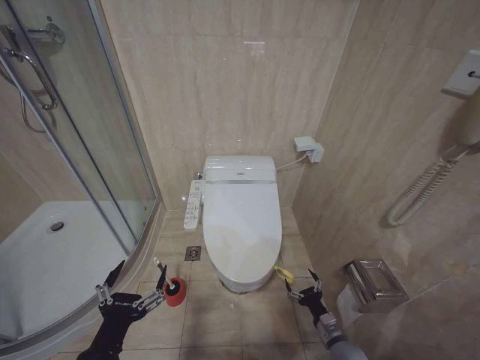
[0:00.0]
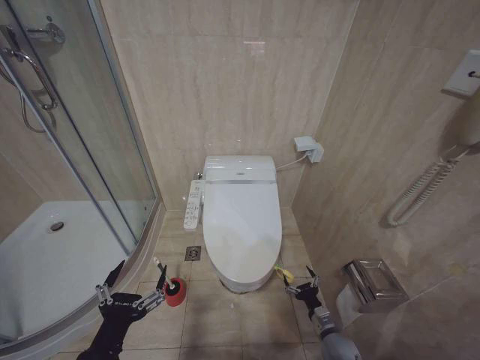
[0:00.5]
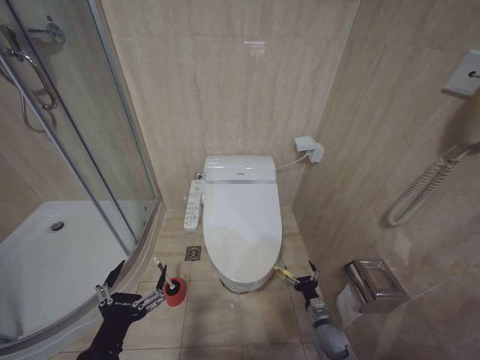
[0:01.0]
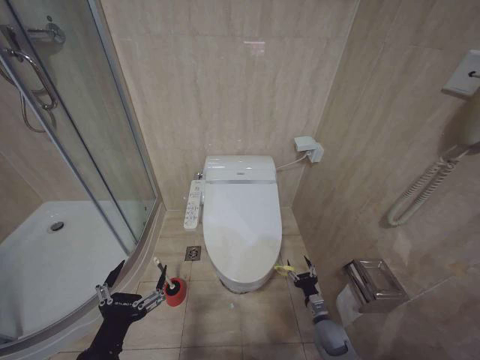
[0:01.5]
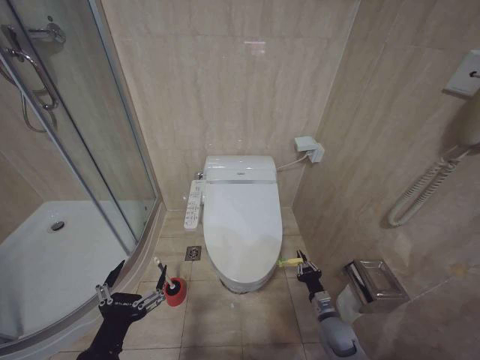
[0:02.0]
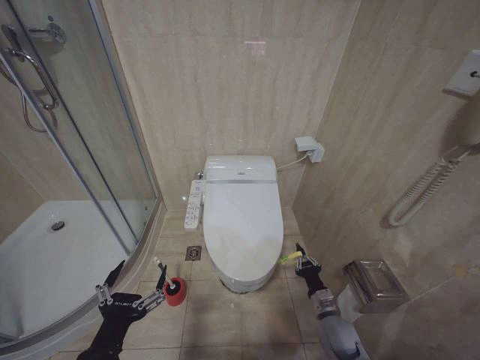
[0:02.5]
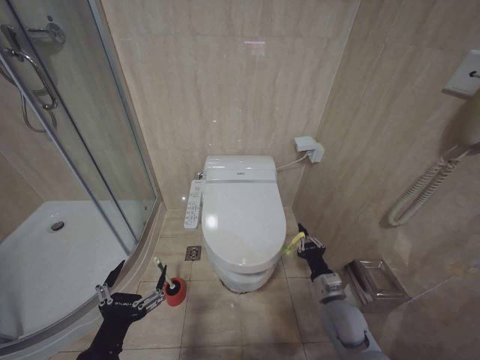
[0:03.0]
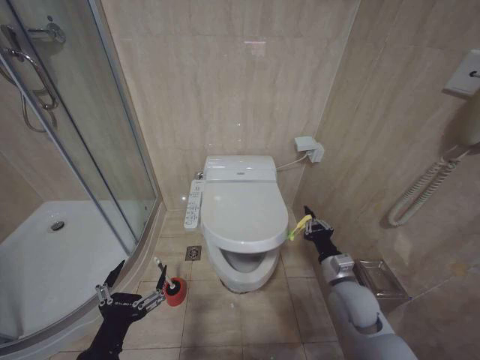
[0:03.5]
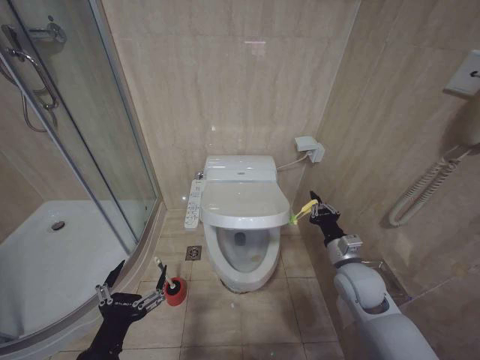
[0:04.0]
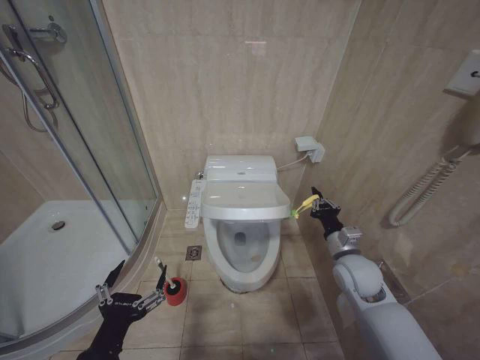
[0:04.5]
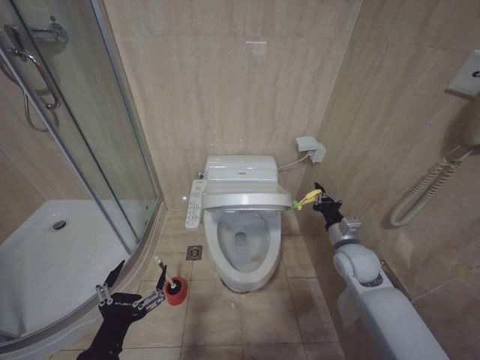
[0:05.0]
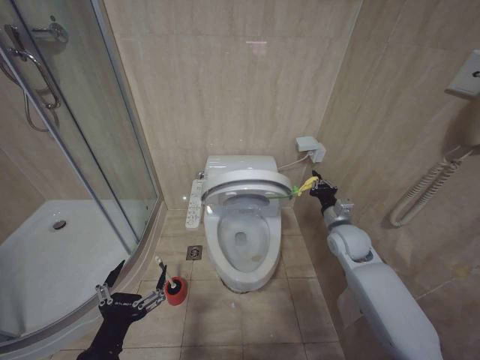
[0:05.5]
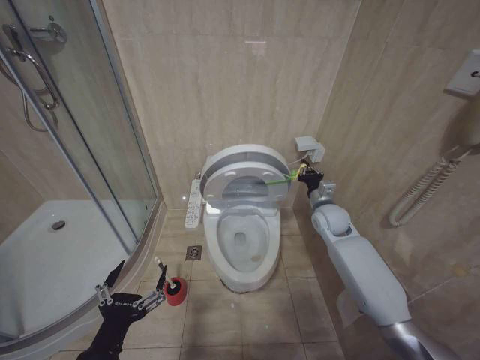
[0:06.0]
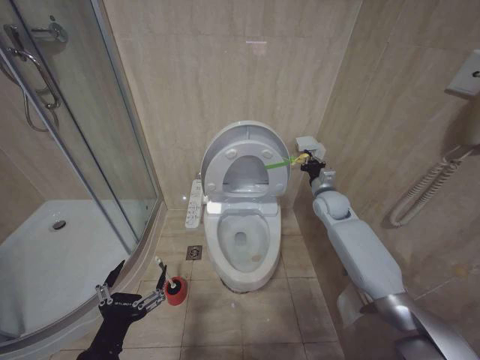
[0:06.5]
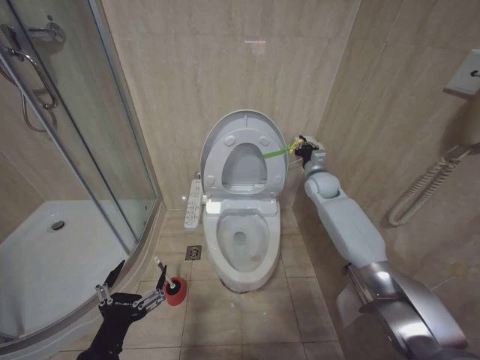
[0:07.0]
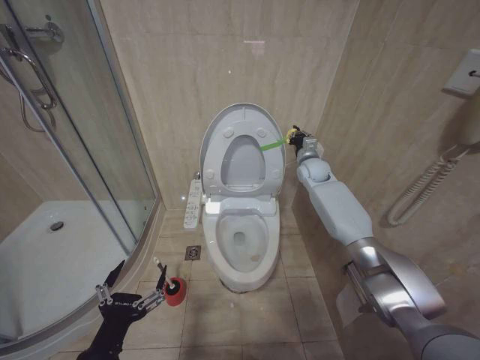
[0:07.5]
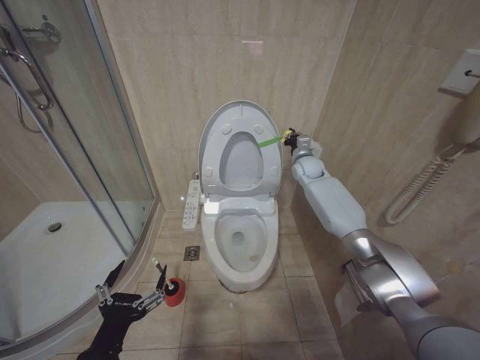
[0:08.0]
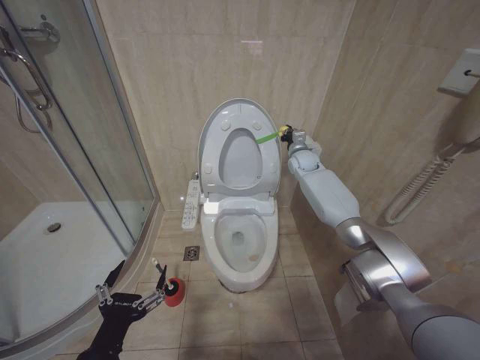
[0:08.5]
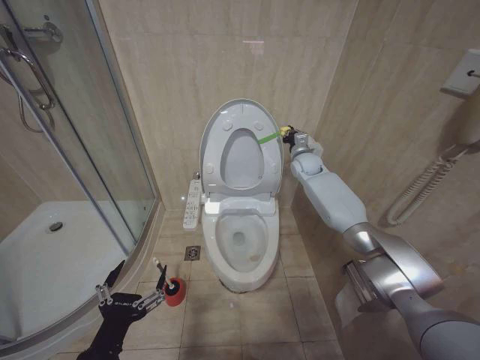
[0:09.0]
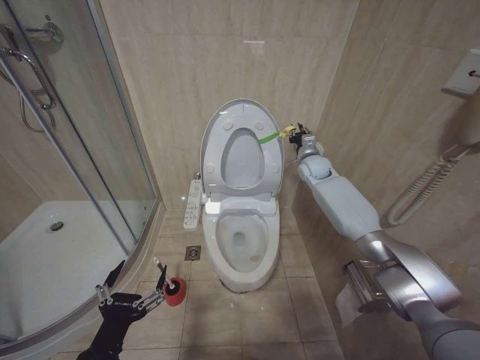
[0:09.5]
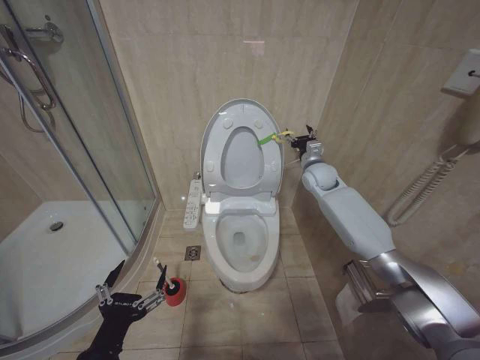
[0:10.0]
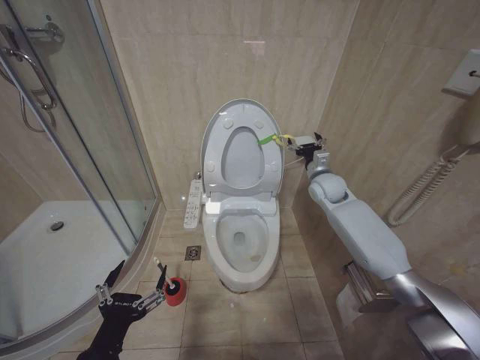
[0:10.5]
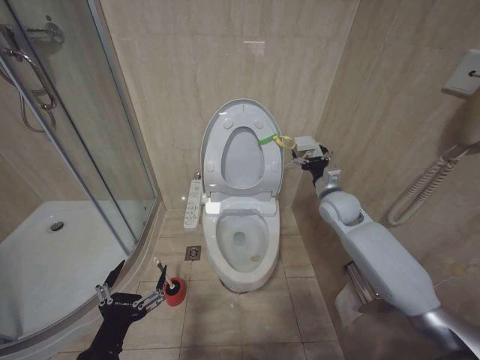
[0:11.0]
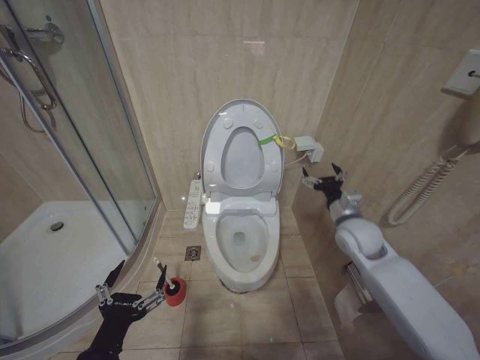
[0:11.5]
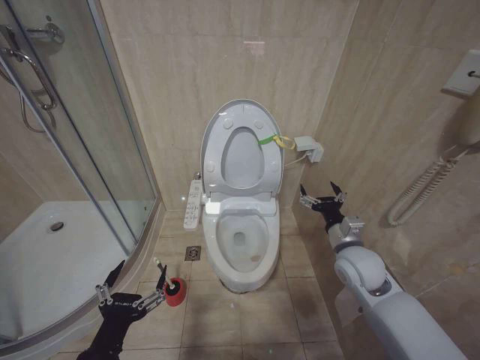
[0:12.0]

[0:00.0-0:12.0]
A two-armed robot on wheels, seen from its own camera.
Task of the whole recording: Open the toilet lid, clean the toilet bowl with a toilet brush, close the toilet lid, and flush.
0:00.0 to 0:02.0: The right gripper shifts roughly 5 cm forward, and closes.
0:02.0 to 0:04.0: The right gripper moves upward, about 25 cm, and closes its fingers.
0:04.0 to 0:06.0: The right gripper travels forward by roughly 15 cm.
0:06.0 to 0:08.0: The right gripper travels forward and upward by approximately 20 cm.
0:08.0 to 0:10.0: The right gripper ends up some 5 cm from where it was, and opens up.
0:10.0 to 0:12.0: The right gripper heads backward, covering roughly 25 cm, and opens its fingers.

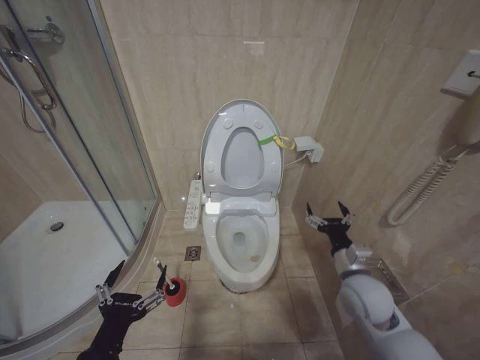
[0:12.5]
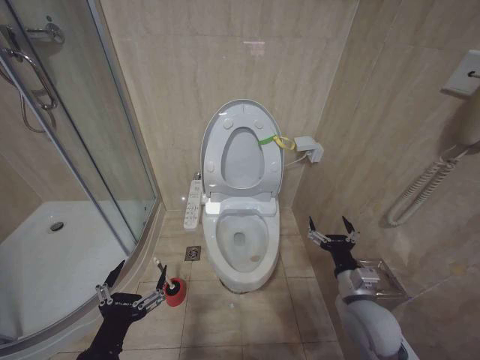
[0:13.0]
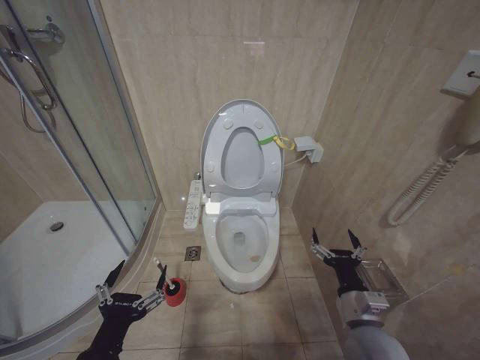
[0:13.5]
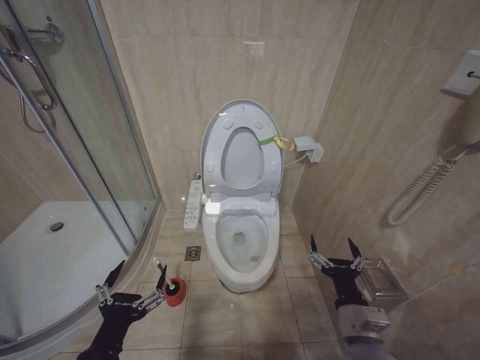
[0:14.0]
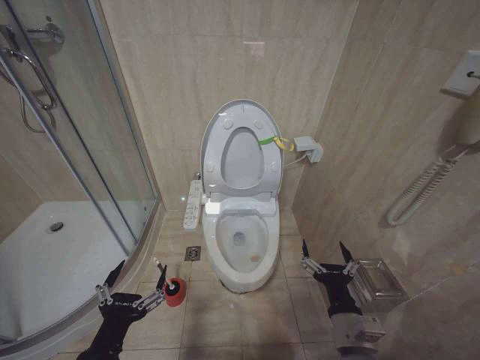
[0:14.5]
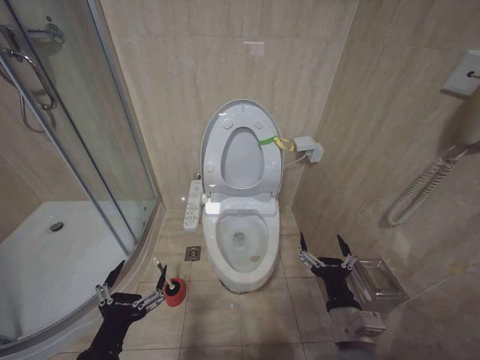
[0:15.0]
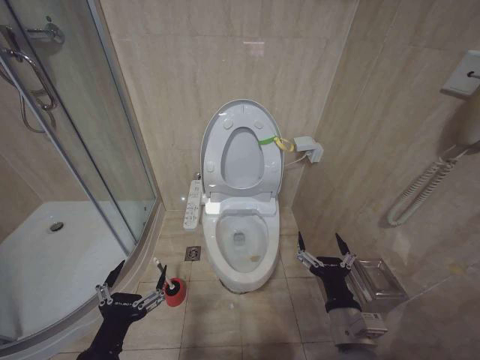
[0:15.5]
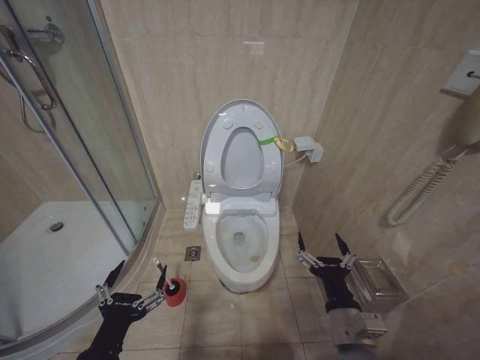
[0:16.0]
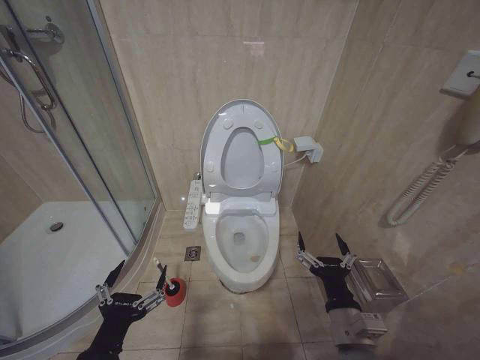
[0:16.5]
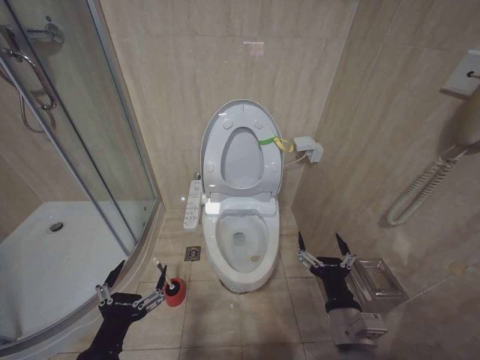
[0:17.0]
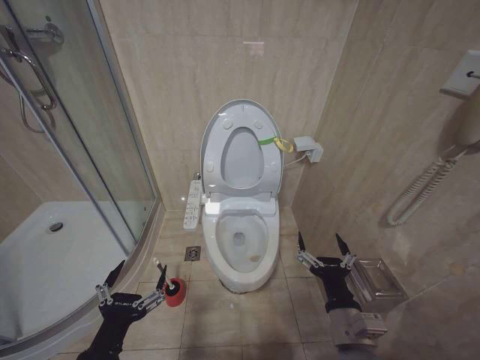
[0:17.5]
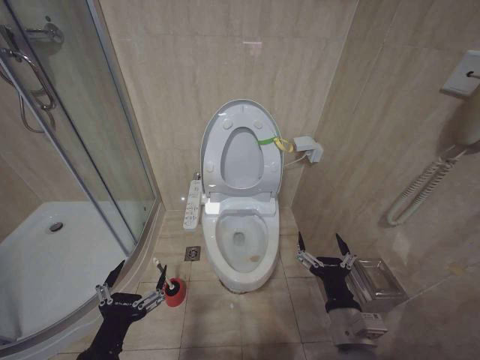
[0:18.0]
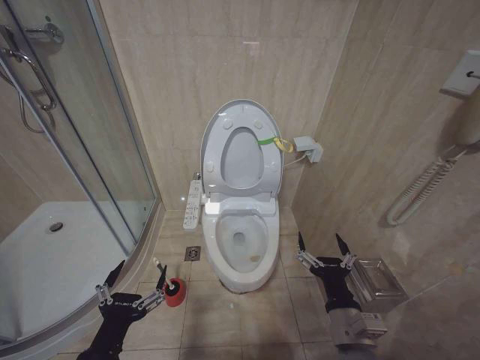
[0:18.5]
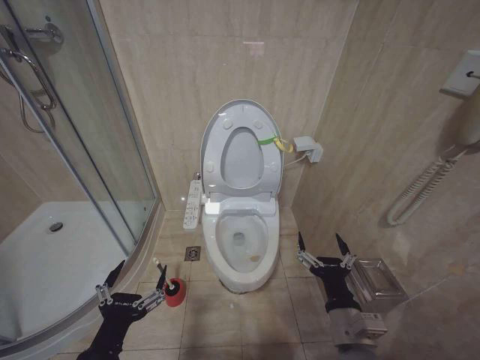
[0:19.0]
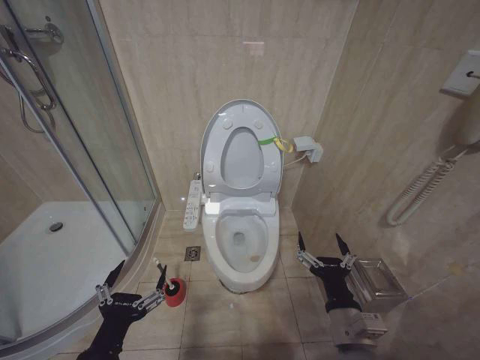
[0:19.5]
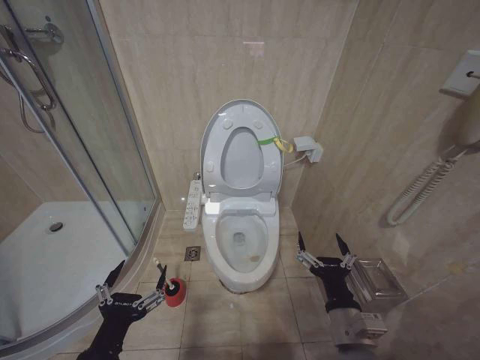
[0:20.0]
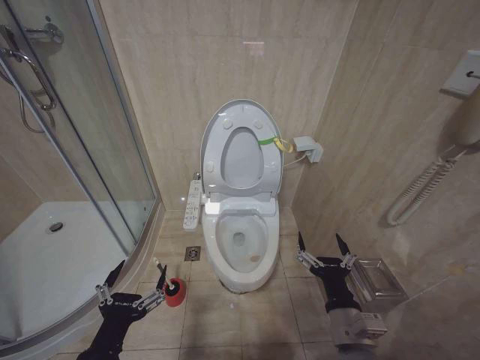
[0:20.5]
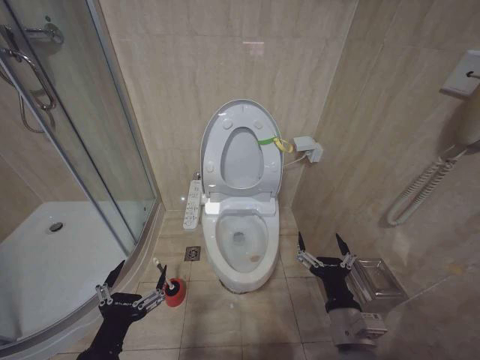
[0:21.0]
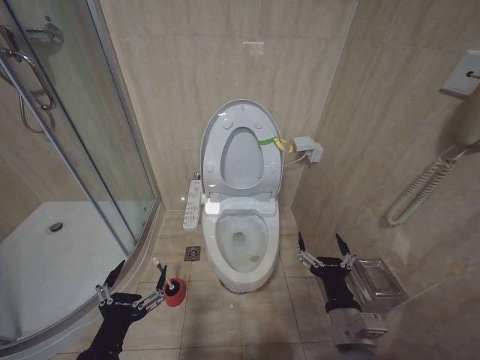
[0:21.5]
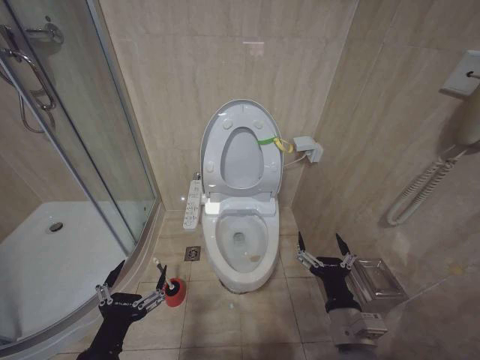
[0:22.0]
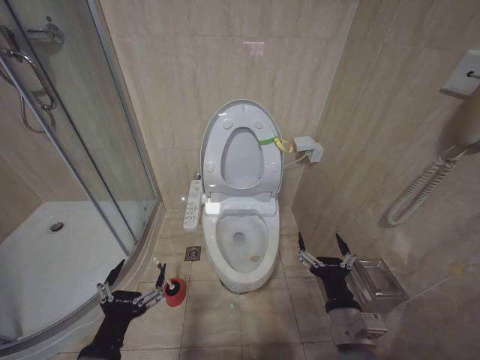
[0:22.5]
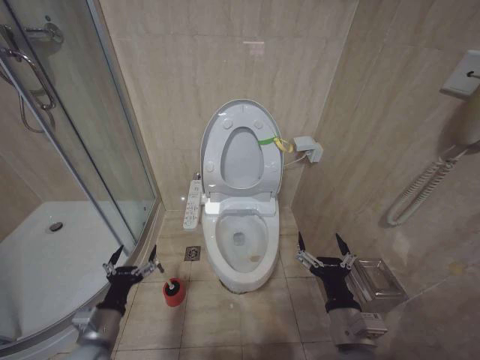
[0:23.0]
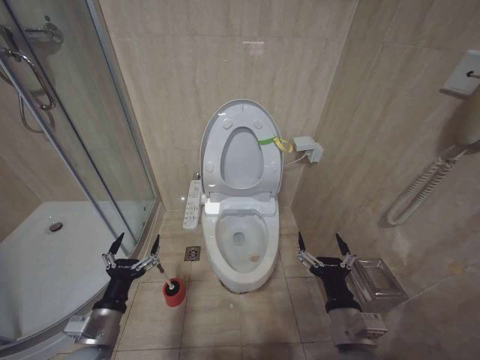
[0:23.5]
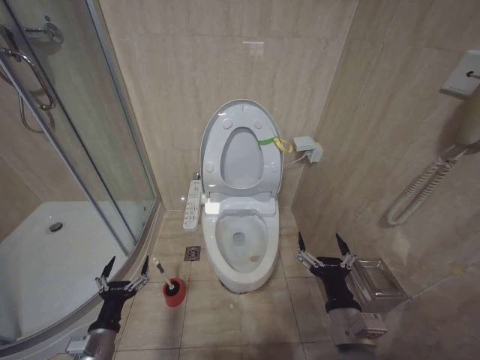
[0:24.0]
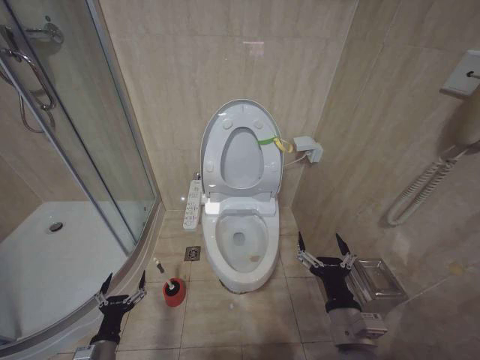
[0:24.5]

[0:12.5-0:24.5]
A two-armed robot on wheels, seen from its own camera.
Task of the whole recording: Open the toilet lid, clean the toilet bowl with a toilet brush, close the toilet lid, and flush.
0:12.5 to 0:14.5: The right gripper shifts about 15 cm backward and to the left.
0:16.5 to 0:22.5: Neither gripper changes place.
0:22.5 to 0:24.5: The left gripper goes approximately 25 cm downward, forward and to the left.

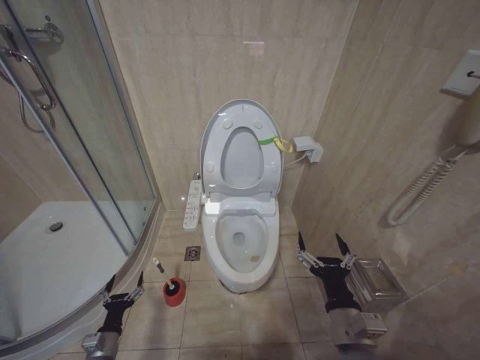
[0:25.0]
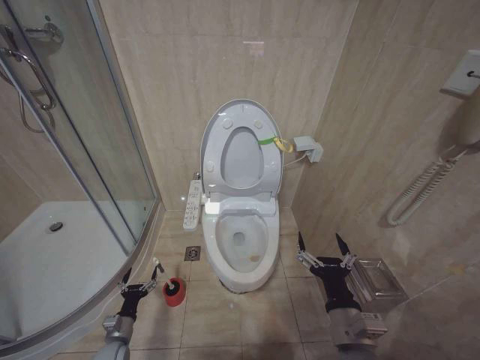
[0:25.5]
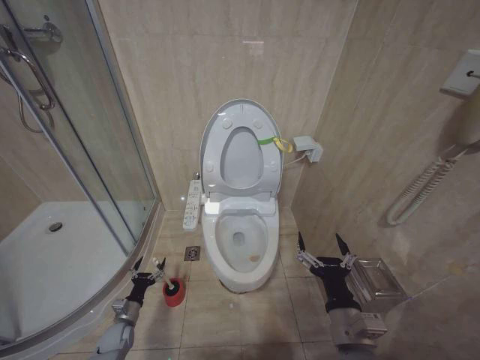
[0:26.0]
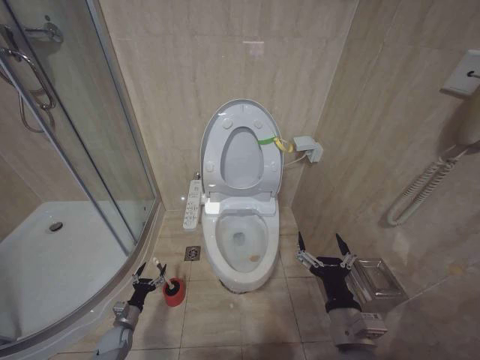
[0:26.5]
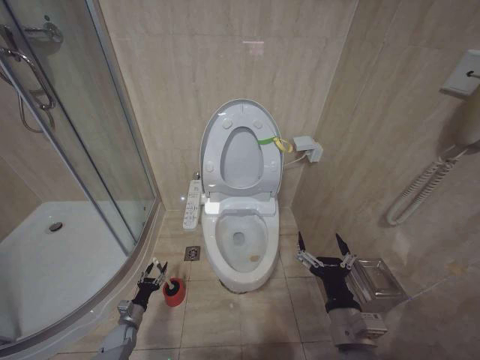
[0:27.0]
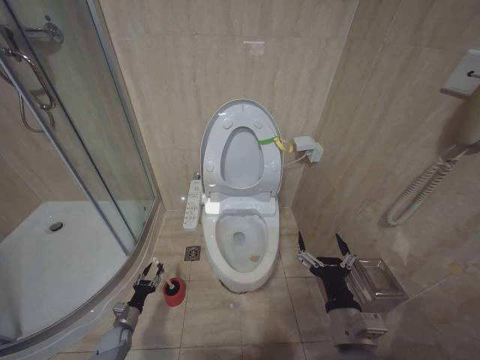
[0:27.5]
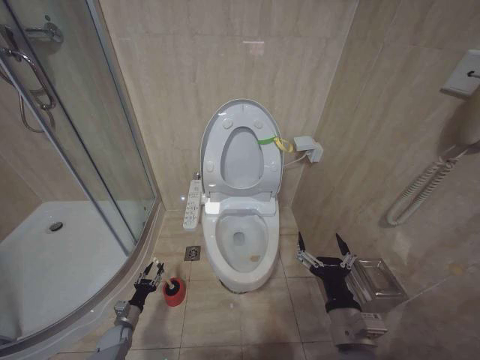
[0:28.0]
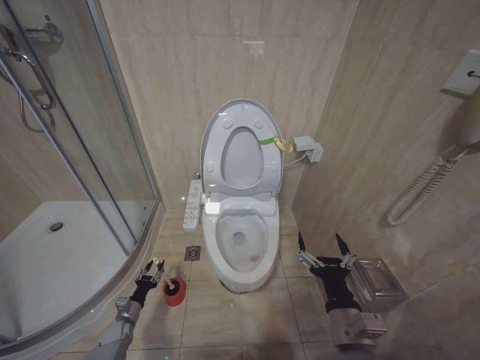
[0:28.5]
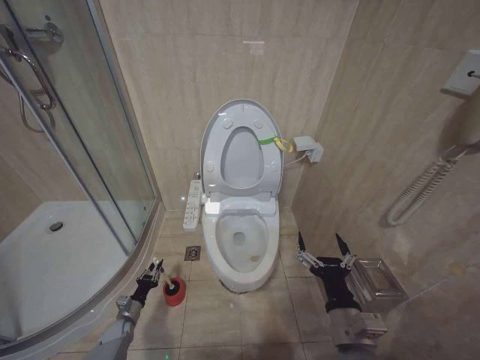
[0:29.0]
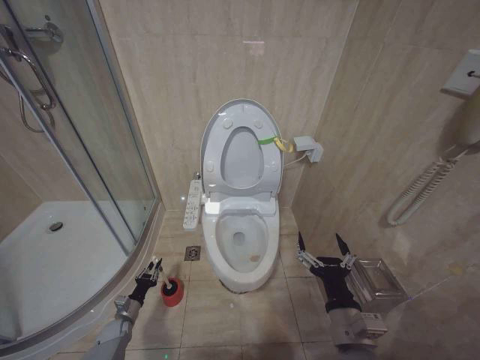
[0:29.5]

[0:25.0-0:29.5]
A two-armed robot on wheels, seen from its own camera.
Task of the whole recording: Open the toilet lid, clean the toilet bowl with a toilet brush, close the toilet lid, and flush.
0:25.0 to 0:27.0: The left gripper is displaced forward and downward by about 15 cm.
0:27.0 to 0:29.5: The left gripper closes its fingers.
